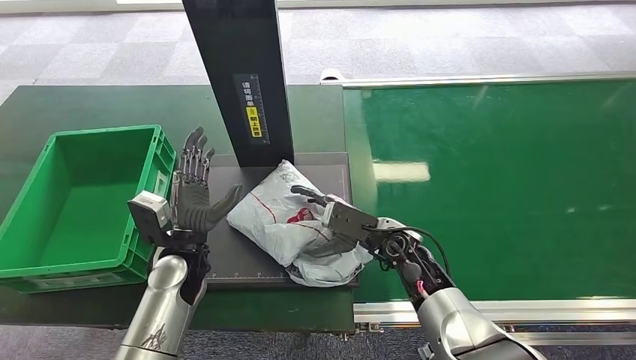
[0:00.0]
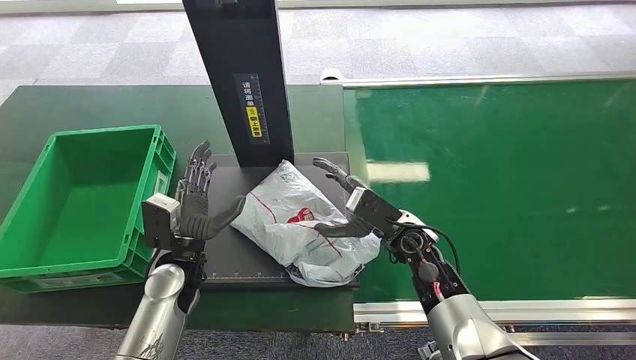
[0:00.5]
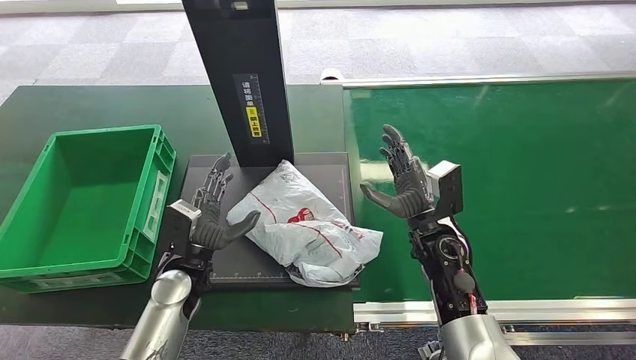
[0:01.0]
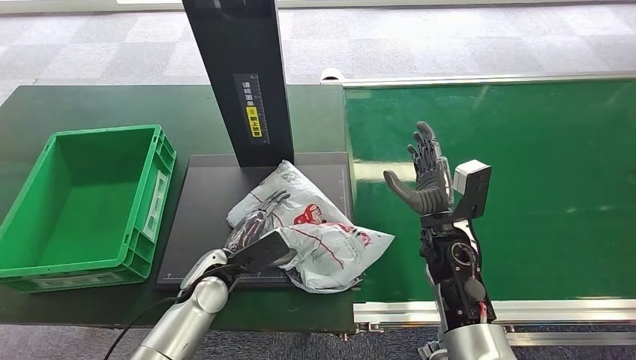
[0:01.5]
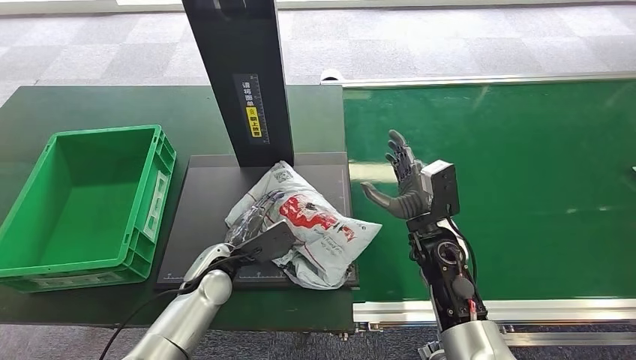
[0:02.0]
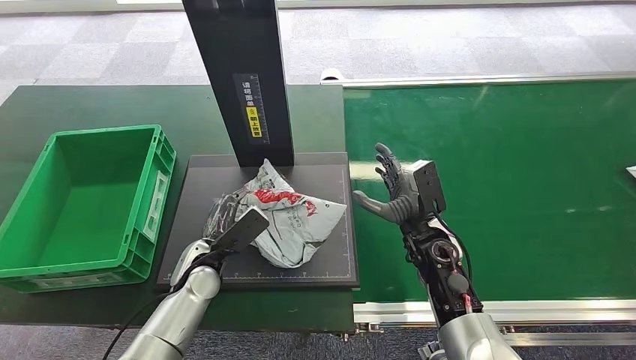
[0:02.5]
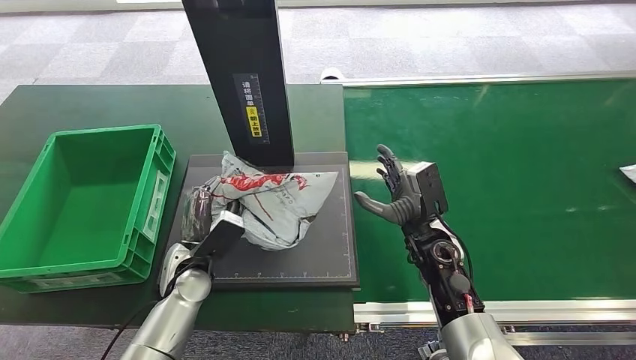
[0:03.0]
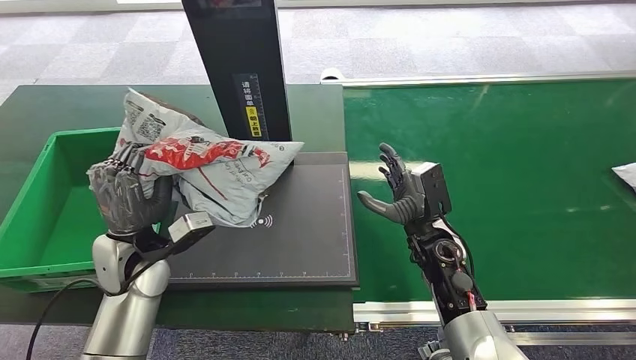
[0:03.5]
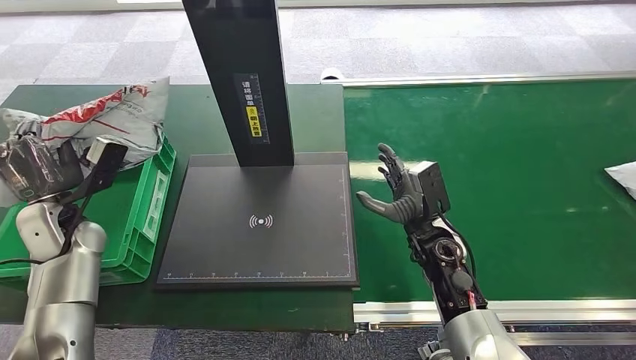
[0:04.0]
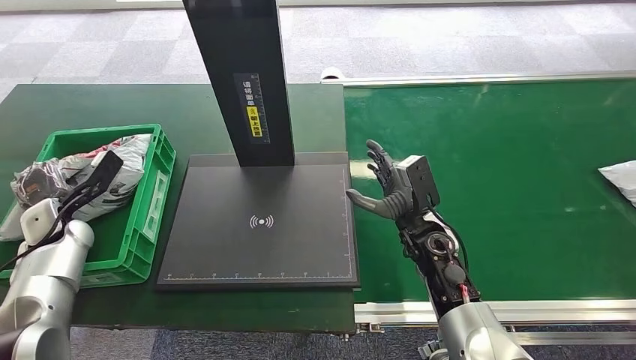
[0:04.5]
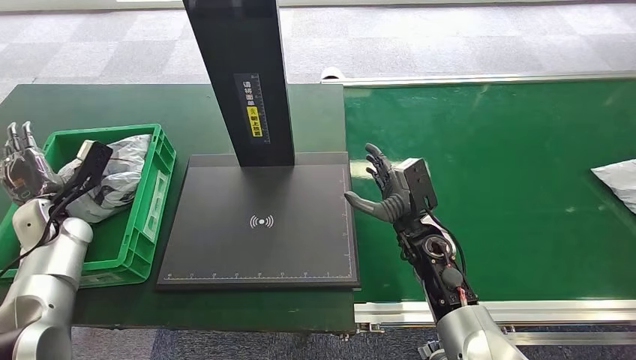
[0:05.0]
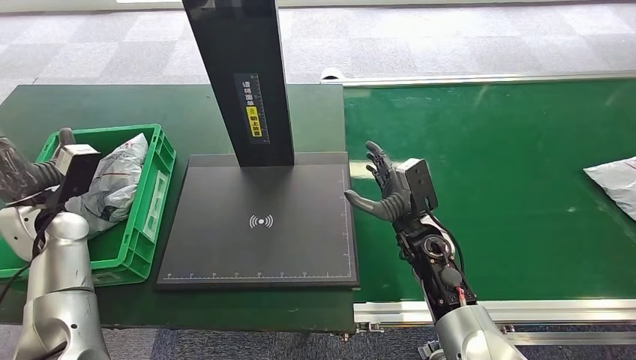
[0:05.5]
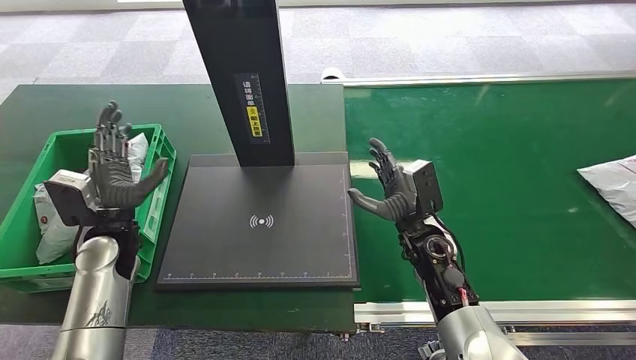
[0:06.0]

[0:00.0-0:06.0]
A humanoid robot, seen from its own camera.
Step, 0:01.5 to 0:03.5: Pick up the package from the inbound machine.
Step, 0:04.5 to 0:06.0: Place the package into the parcel locker.
0:00.0 to 0:02.0: The left hand goes some 5 cm downward.
0:04.0 to 0:06.0: The left hand goes some 10 cm to the right.
